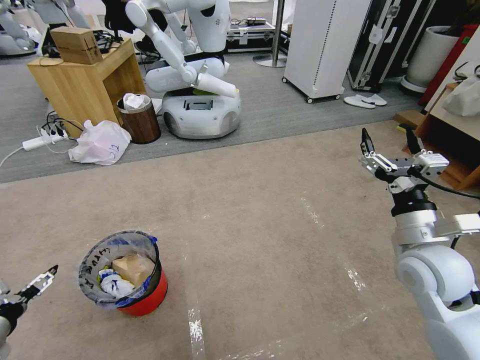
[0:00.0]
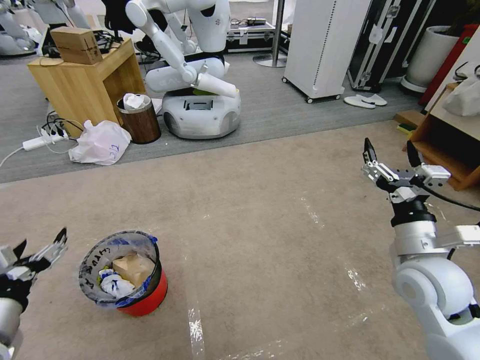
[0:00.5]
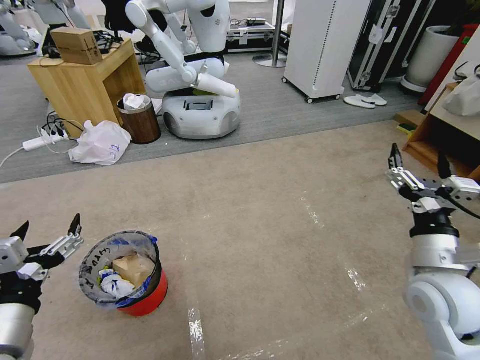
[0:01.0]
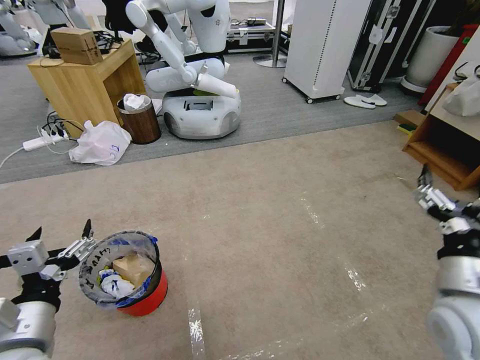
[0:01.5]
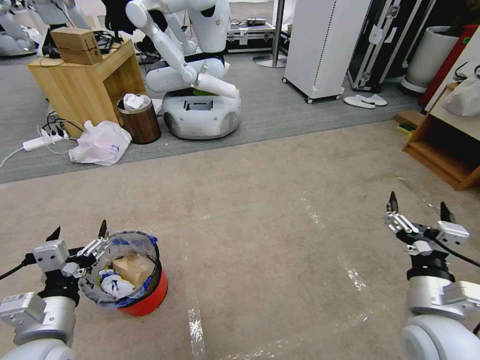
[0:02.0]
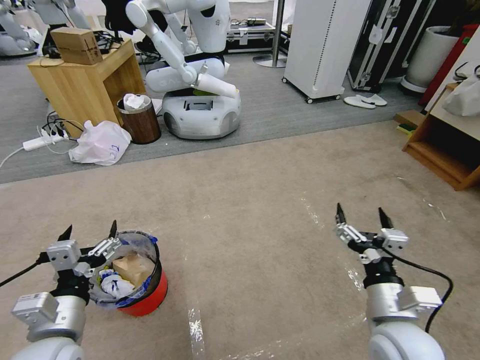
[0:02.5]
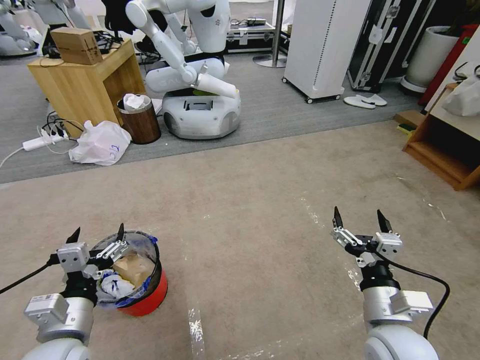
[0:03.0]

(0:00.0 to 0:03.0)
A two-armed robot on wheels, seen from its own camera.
Task of the whole recording: Pick up the trash bin and place the garbage on the floor into it.
0:00.0 - 0:01.5: The right gripper goes roughly 10 cm backward, while the left gripper is displaced to the right and upward by approximately 20 cm.
0:01.5 - 0:03.0: The left gripper ends up approximately 5 cm from where it was, while the right gripper heads to the left and downward, covering roughly 10 cm.
